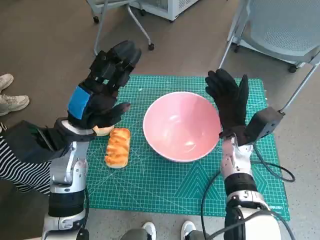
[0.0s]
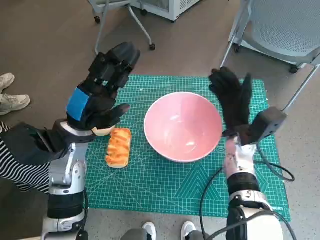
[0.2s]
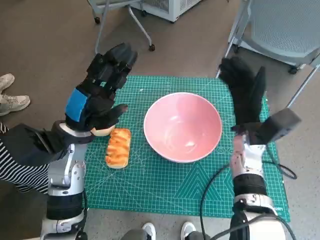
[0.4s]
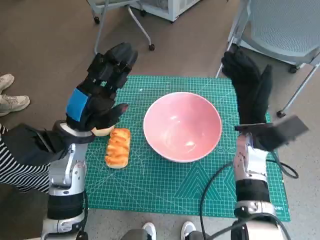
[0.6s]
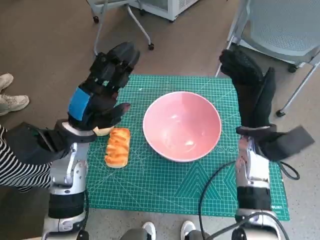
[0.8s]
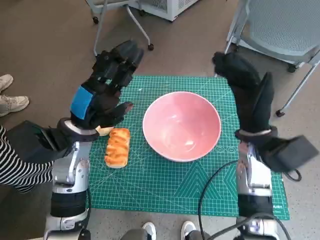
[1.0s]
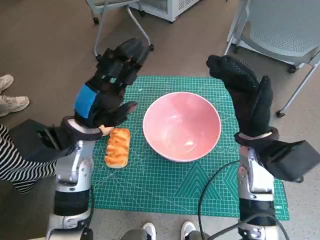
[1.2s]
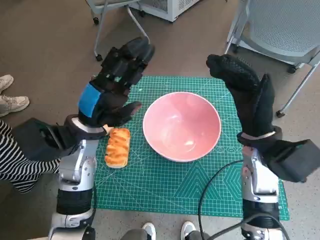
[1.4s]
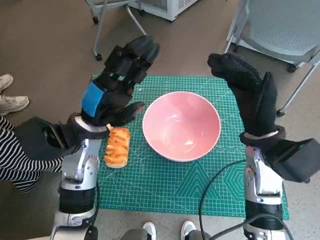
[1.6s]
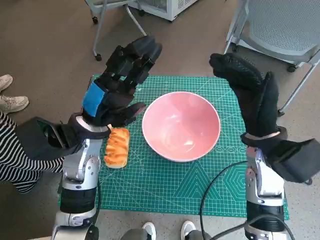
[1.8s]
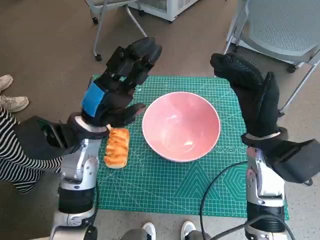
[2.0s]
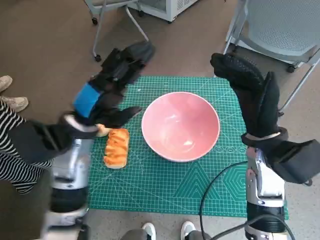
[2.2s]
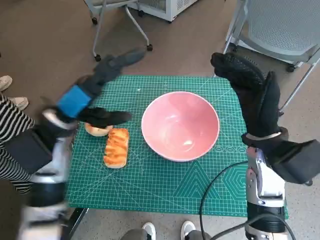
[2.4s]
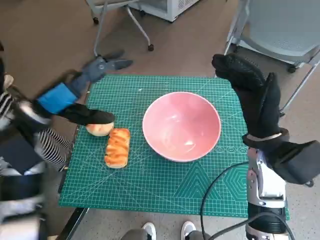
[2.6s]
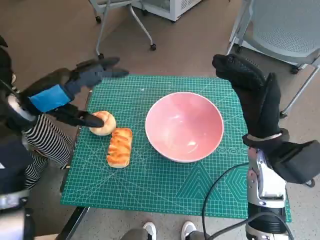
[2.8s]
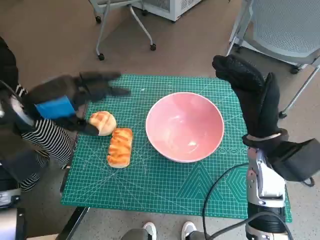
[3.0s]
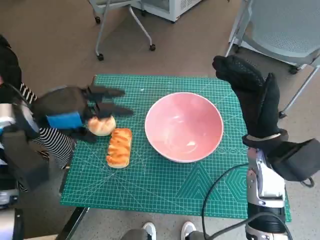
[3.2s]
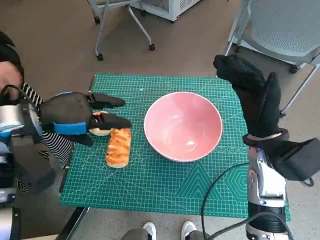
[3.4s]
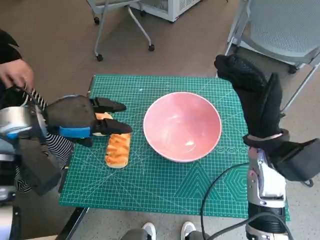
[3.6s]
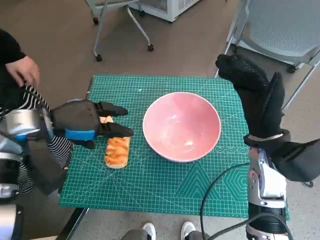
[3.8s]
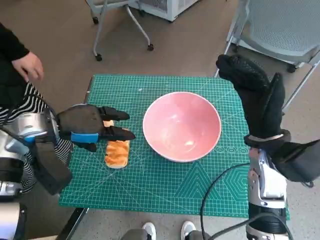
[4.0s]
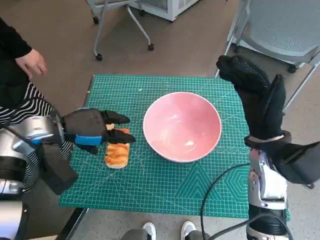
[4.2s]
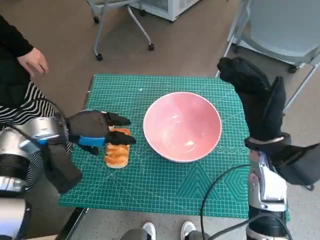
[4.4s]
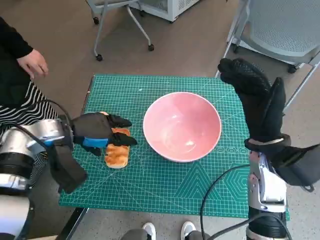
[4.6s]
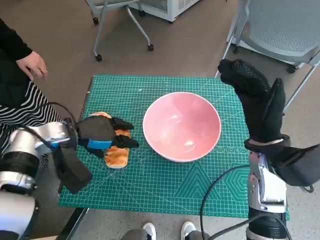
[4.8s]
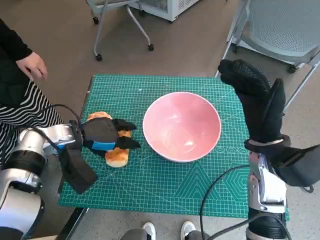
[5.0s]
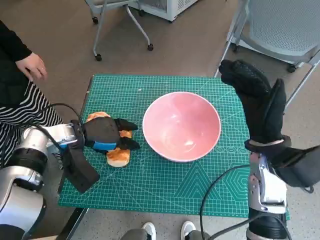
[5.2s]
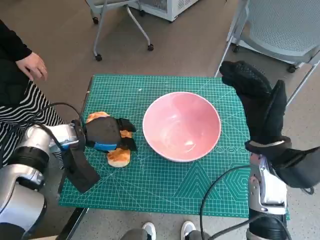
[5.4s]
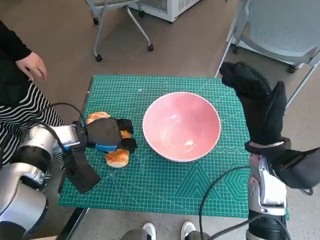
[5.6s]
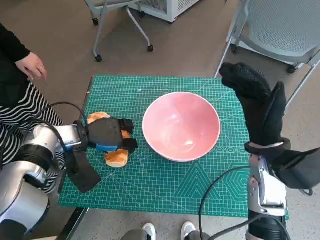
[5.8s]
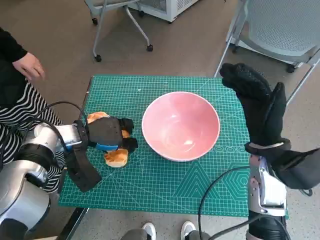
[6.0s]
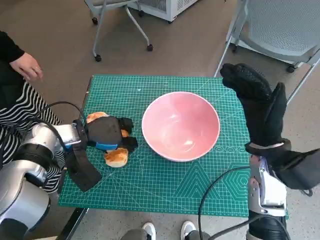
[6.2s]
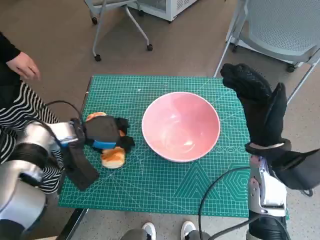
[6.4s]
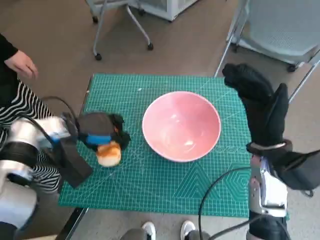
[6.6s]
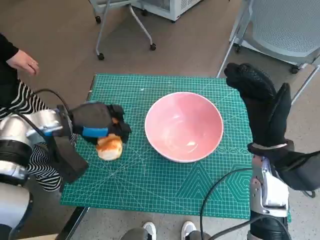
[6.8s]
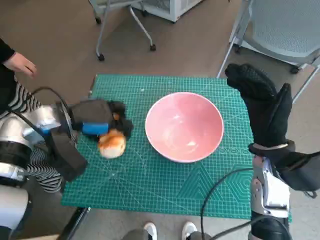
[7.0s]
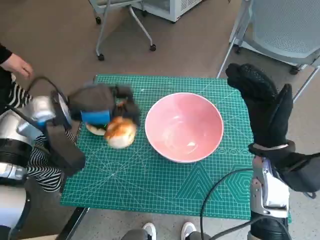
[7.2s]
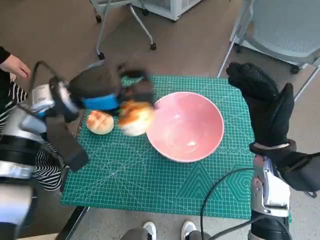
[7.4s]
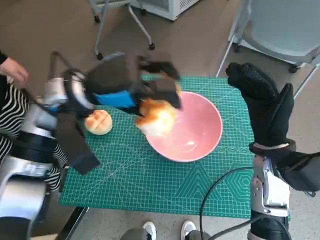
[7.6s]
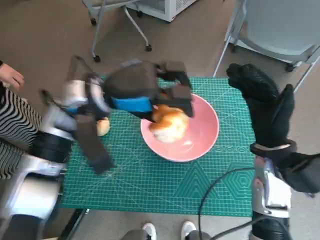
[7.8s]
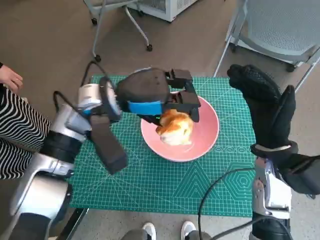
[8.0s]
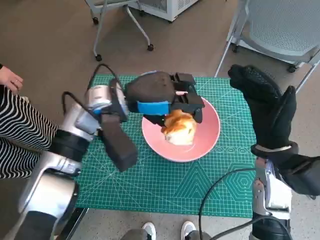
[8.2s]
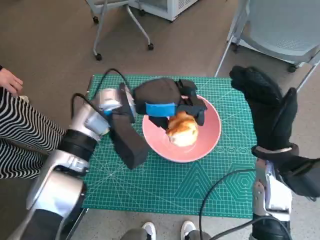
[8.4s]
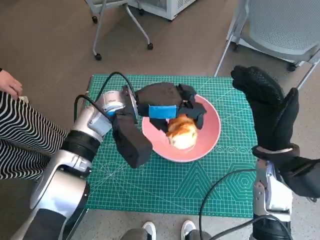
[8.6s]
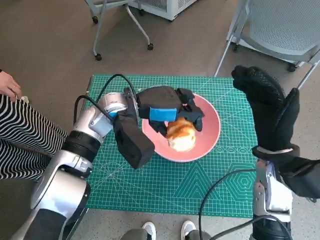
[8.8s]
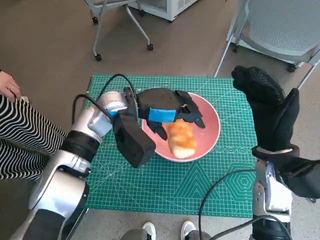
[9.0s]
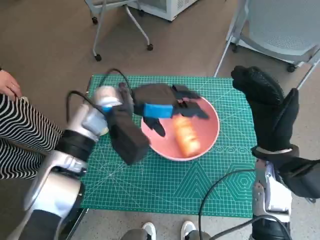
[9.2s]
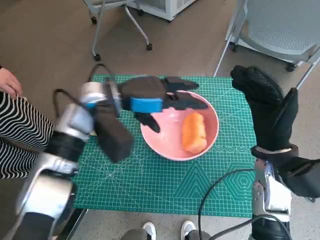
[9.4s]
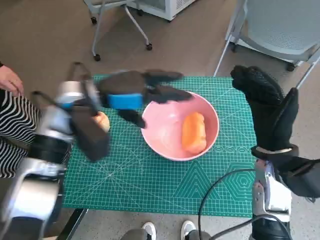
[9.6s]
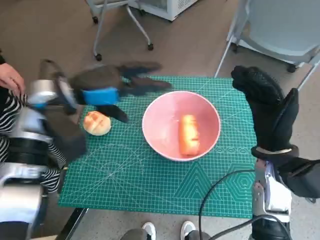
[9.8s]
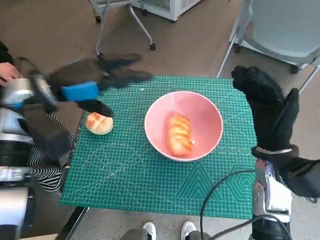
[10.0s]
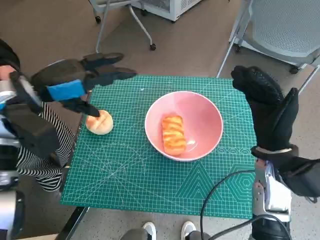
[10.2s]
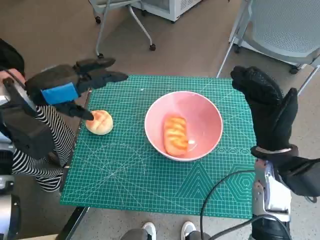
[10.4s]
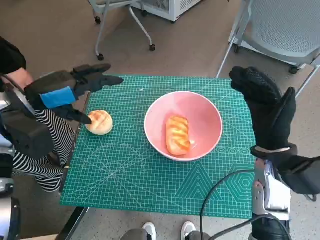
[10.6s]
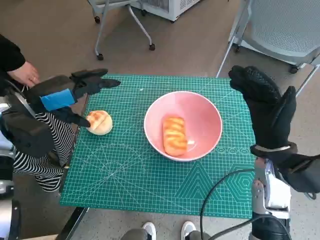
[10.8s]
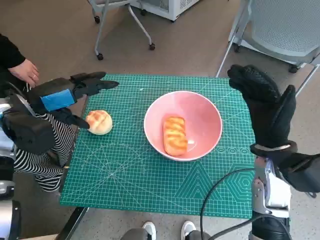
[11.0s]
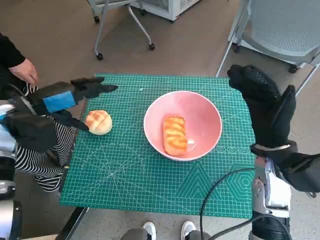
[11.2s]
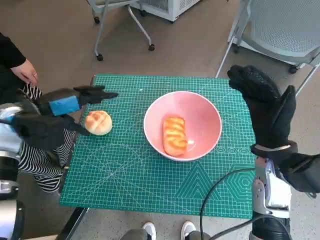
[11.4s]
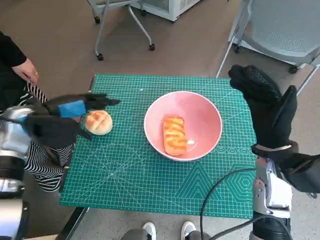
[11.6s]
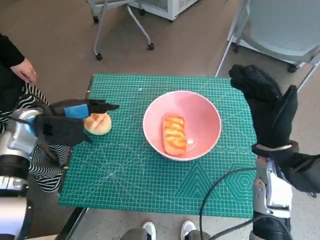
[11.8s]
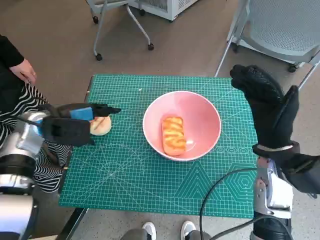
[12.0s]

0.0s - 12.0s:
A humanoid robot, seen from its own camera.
Task of the whole recording: Push the bowl into the center of the table and put the bread into the bowl.
Step, 0.4s - 5.8s: Grasp the long bread with left hand.
Step, 6.0s - 9.0s: Place the long bread in pink bowl with left hand.
0.0s - 1.6s: The right hand shifts approximately 10 cm upward.
1.6s - 3.0s: The left hand goes about 10 cm to the left and upward.
3.0s - 4.4s: The left hand heads downward, covering some 10 cm.
4.4s - 6.0s: The left hand travels downward by about 5 cm.
6.0s - 7.6s: The left hand travels upward and to the right by approximately 15 cm.
7.6s - 9.0s: The left hand goes roughly 10 cm downward and to the right.
9.0s - 10.4s: The left hand is displaced to the left by about 15 cm.
10.4s - 12.0s: The left hand is displaced downward by roughly 10 cm.

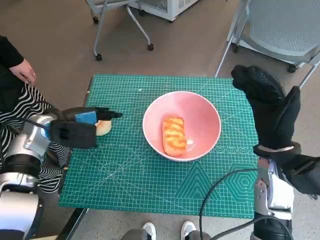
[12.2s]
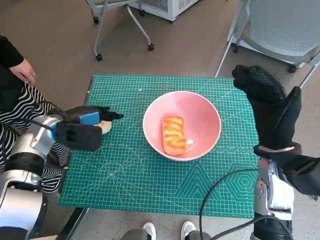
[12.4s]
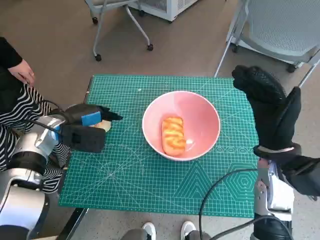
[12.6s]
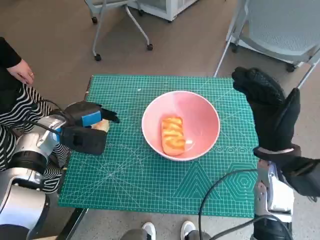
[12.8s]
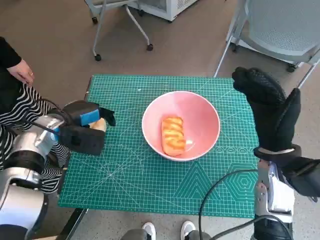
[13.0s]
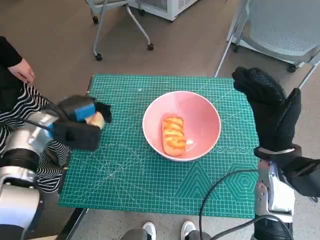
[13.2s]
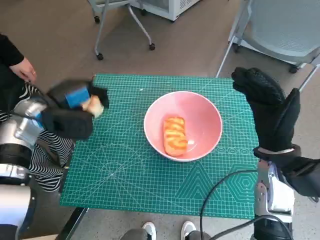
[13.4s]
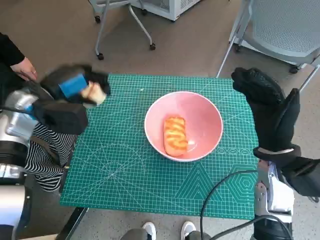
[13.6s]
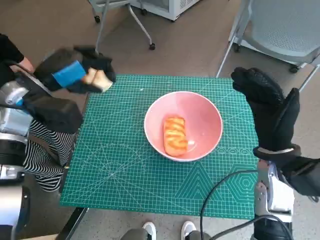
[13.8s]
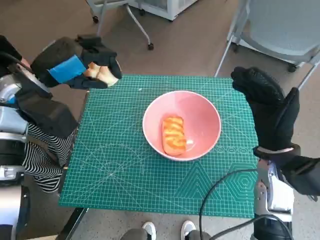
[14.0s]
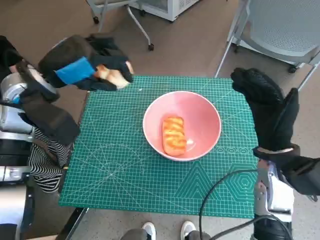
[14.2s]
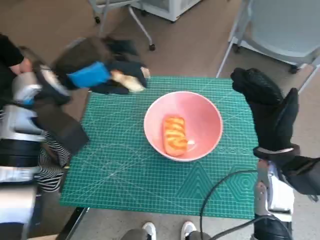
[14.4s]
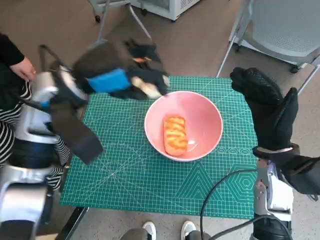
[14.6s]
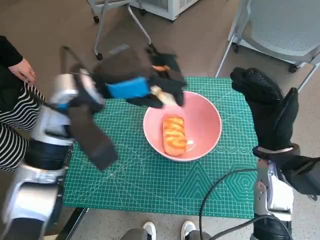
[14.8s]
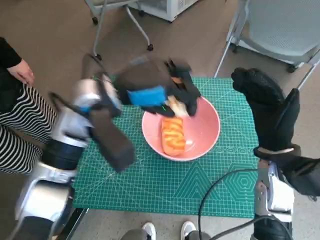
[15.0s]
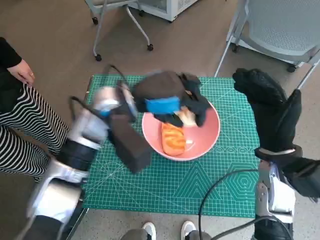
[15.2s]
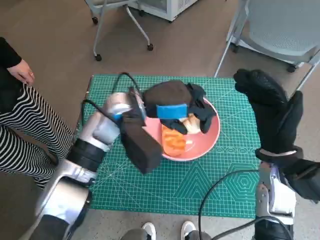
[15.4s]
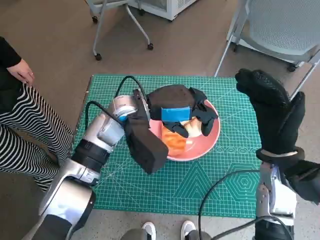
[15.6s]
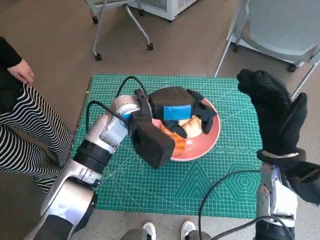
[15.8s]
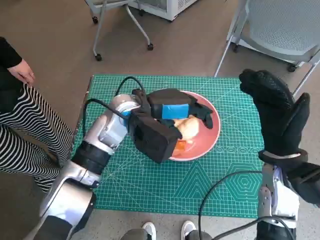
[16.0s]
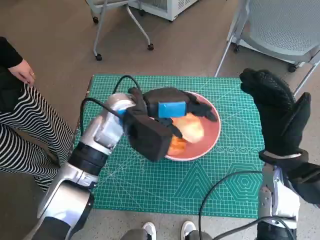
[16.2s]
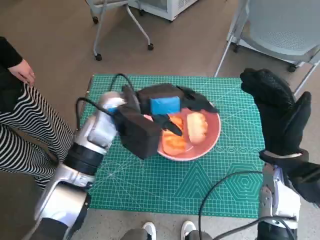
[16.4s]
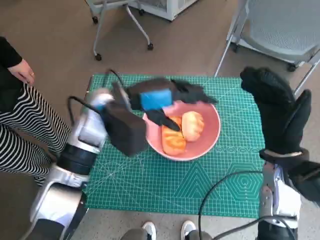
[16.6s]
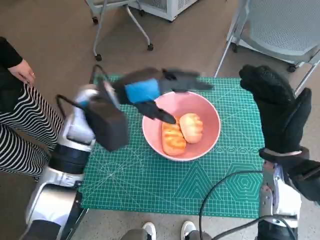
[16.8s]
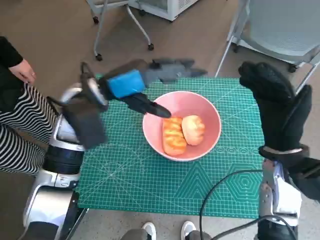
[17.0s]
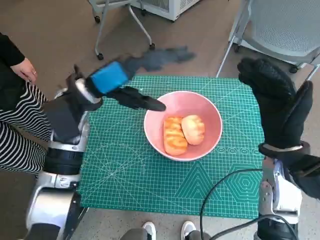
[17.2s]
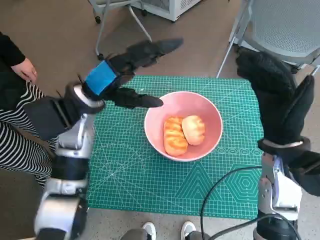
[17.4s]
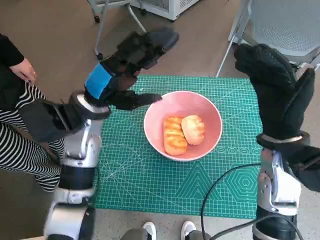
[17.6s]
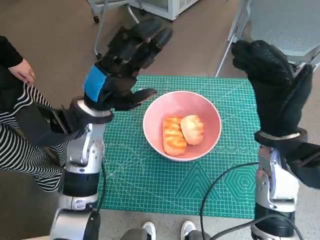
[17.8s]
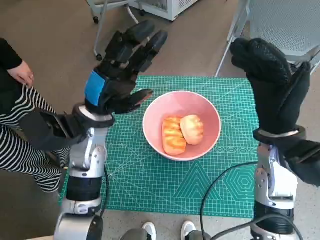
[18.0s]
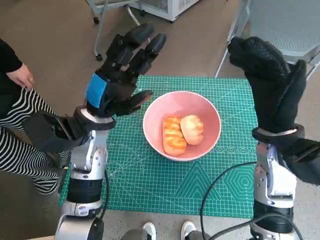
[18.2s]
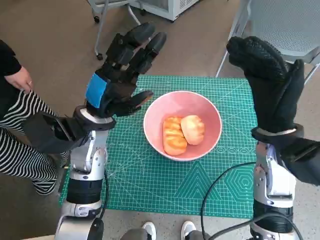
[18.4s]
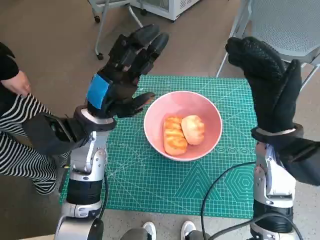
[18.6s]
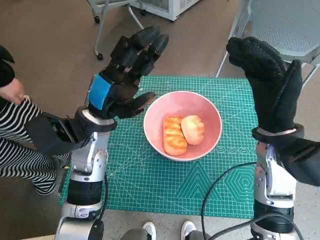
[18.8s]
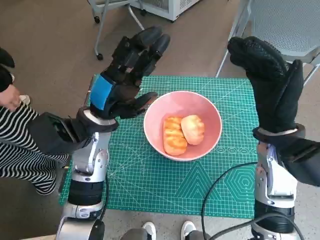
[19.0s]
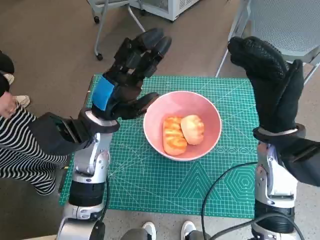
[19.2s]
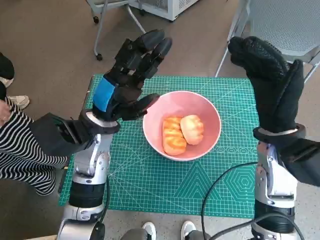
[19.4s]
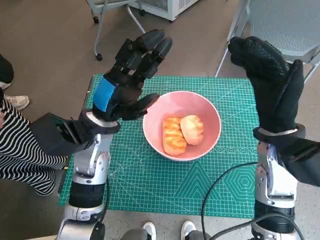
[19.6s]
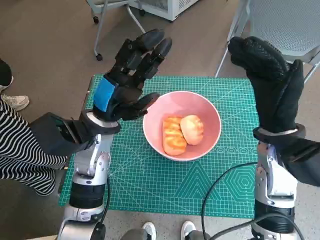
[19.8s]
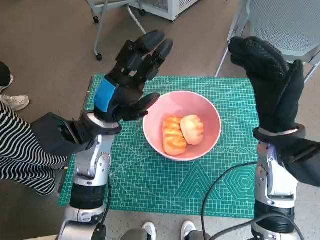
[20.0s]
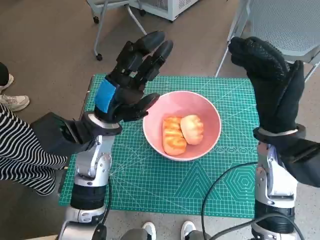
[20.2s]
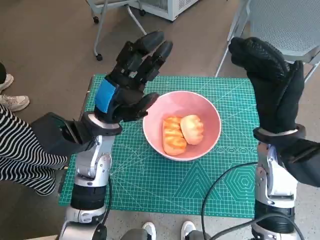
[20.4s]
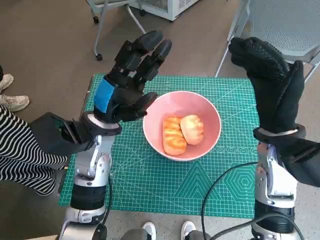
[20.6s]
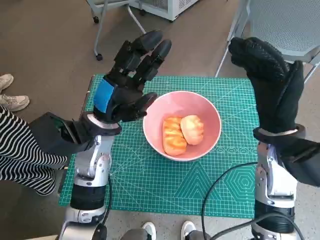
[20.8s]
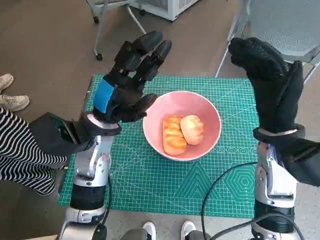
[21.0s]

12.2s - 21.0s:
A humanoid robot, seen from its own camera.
Task of the whole recording: Push the bowl into the center of the table and put the bread into the bowl.
Step, 12.8s - 16.4s: Place the round bread in pink bowl with left hand.
12.2s - 13.6s: The left hand shifts some 5 cm upward.
13.6s - 15.2s: The left hand goes approximately 15 cm to the right.
16.6s - 18.0s: The left hand shifts by some 5 cm.
18.0s - 19.6s: Neither hand changes place.
19.6s - 21.0s: The two hands keep their place.
